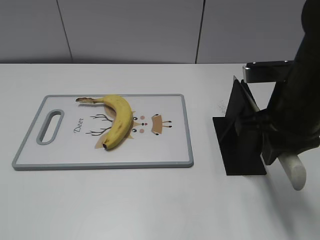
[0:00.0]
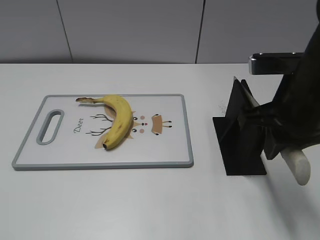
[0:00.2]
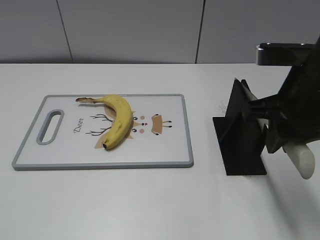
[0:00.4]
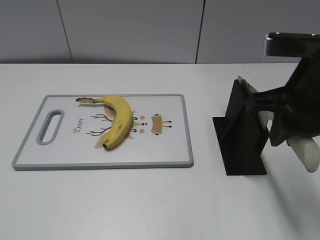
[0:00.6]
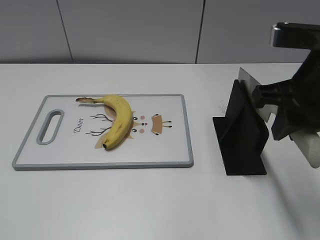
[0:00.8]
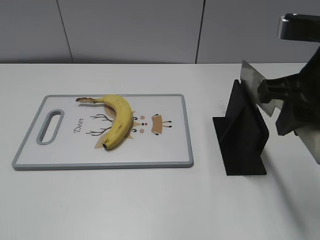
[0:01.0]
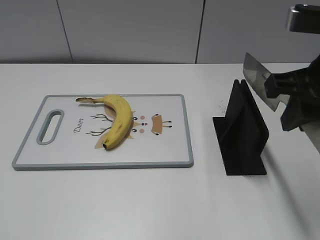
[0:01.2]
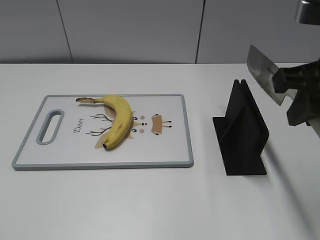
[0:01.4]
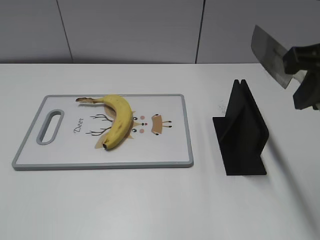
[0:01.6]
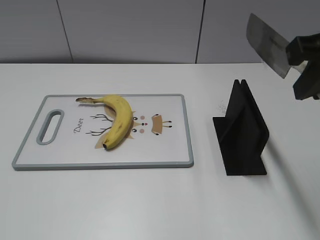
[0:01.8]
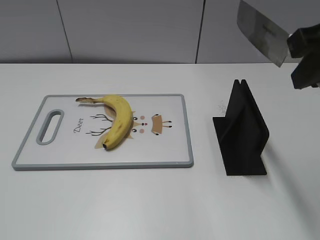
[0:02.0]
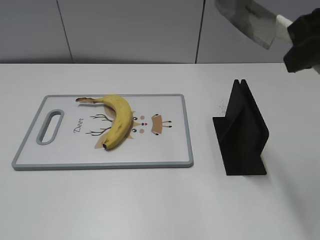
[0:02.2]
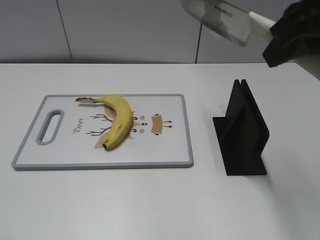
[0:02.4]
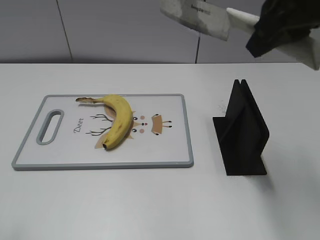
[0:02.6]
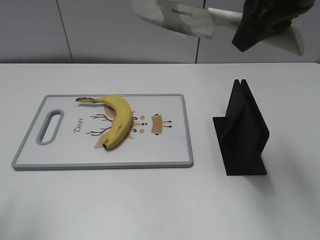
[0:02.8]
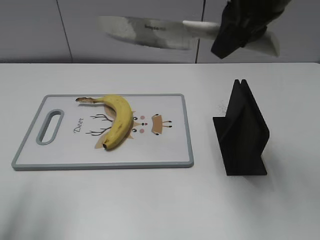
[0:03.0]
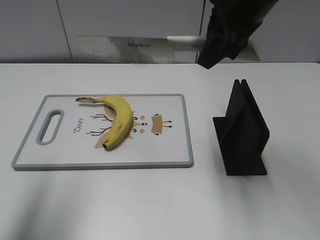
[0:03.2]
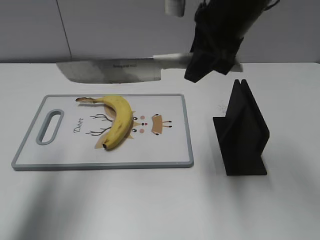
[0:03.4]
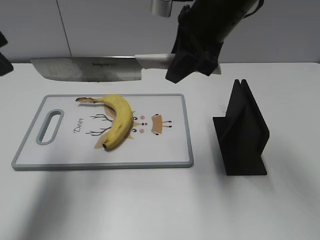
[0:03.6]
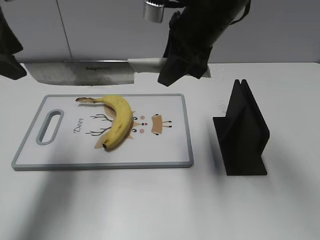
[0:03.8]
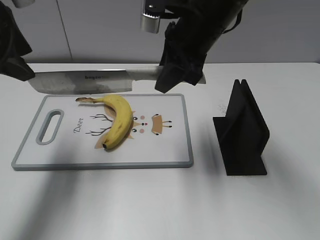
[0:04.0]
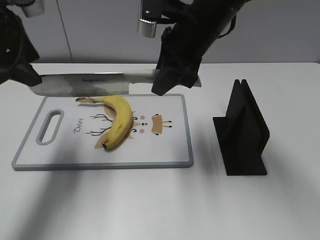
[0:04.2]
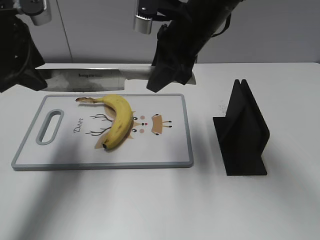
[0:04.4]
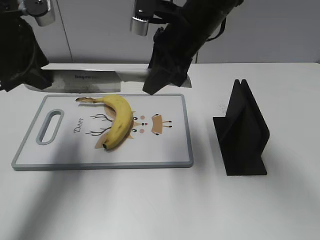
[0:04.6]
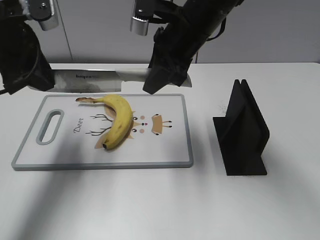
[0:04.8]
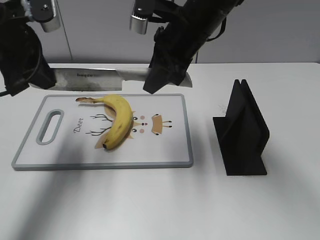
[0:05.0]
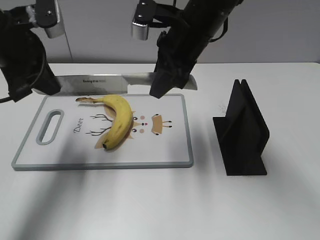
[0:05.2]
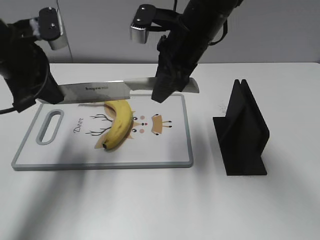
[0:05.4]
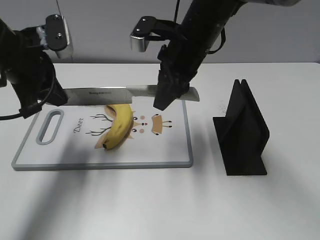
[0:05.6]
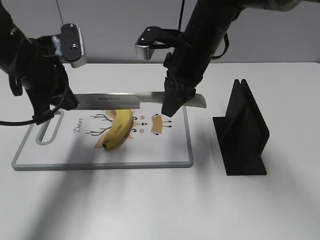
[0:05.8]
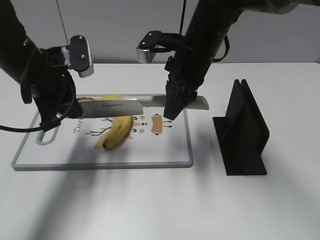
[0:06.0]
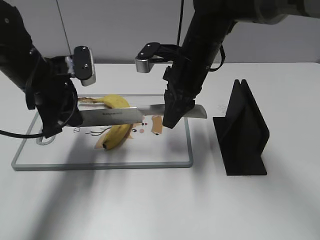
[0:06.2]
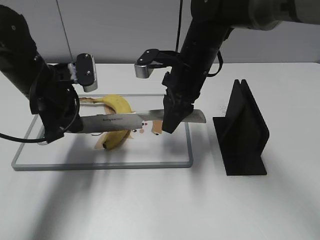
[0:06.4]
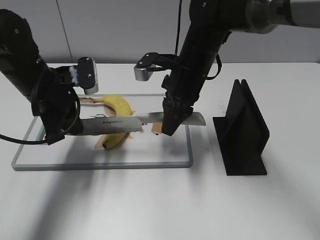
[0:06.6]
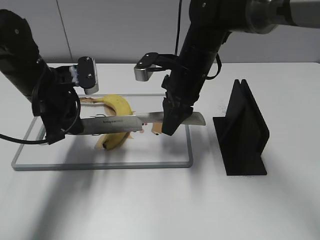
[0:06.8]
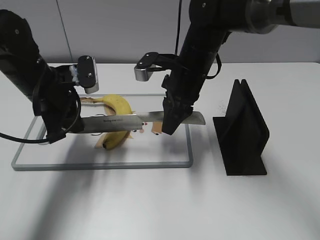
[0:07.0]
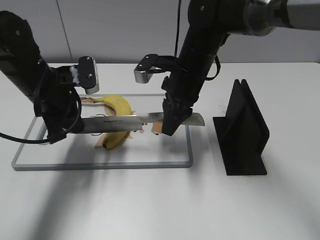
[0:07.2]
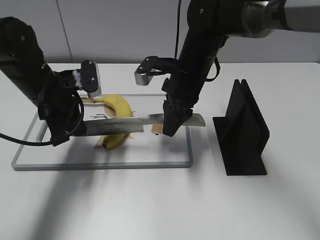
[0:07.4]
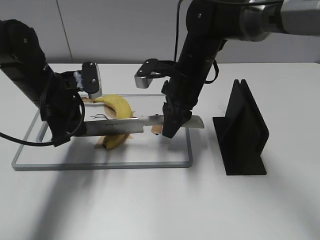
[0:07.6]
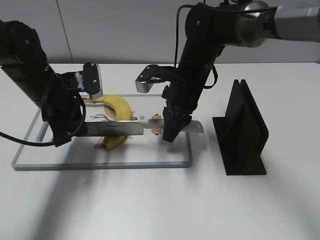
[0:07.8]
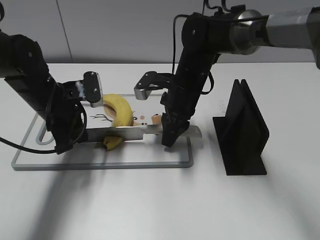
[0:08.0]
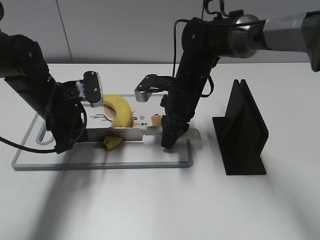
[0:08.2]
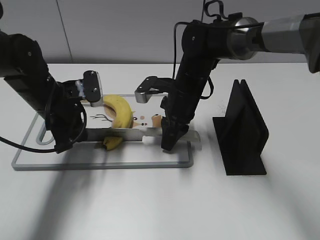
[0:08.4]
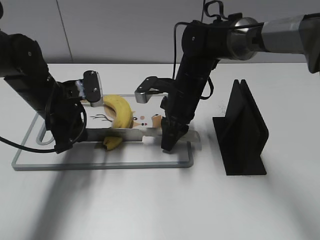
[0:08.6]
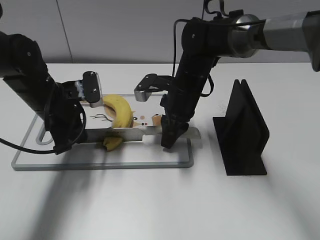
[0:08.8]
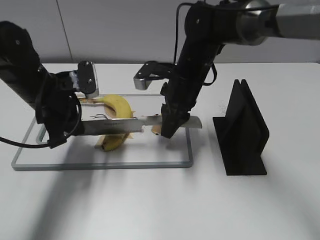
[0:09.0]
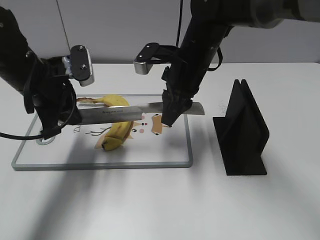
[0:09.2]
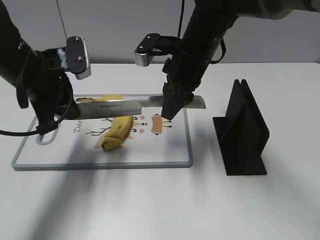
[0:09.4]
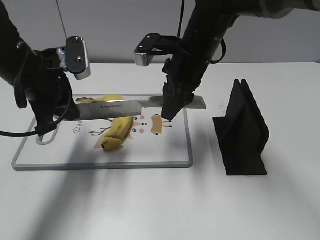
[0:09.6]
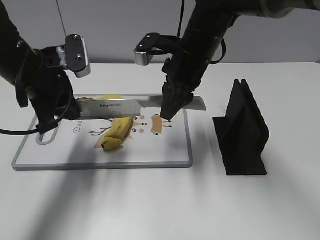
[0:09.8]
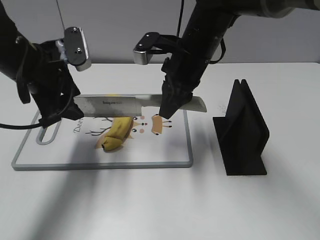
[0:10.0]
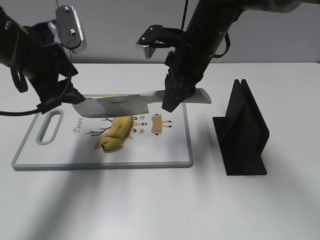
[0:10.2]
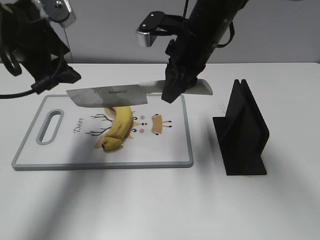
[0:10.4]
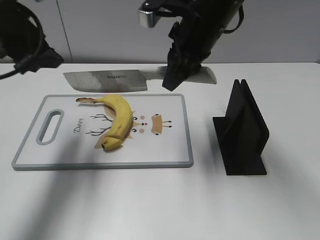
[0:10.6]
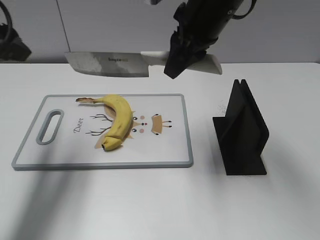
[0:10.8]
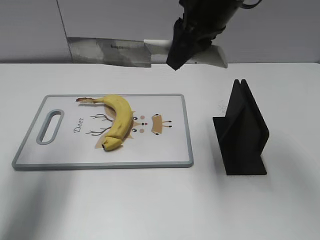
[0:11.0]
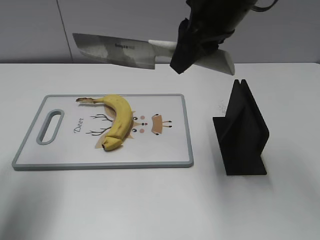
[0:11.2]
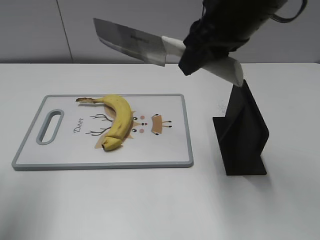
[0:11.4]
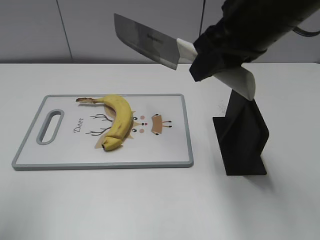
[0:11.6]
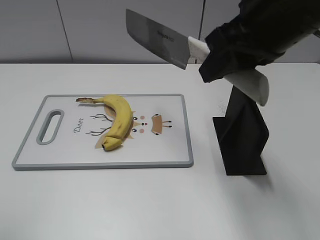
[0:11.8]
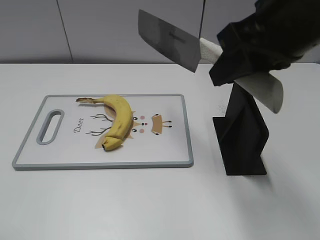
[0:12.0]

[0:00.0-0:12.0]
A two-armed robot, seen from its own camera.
Task of the whole recording: cut banana.
Step, 0:01.0 to 0:07.8: Lift the knife with your right hand.
0:00.0 to 0:01.6: The right gripper heads upward, covering about 10 cm.
0:01.6 to 0:03.0: The right gripper shifts about 10 cm forward and to the left; the left gripper moves forward and upward, approximately 15 cm.
0:03.0 to 0:04.4: The right gripper shifts about 15 cm downward, to the left and forward. The left gripper shifts approximately 20 cm forward and downward.
0:04.4 to 0:06.0: The left gripper shifts about 10 cm downward, and closes up. Meanwhile the right gripper travels downward by about 5 cm.
0:06.0 to 0:07.6: Both grippers travel together downward, approximately 5 cm.
0:07.6 to 0:09.0: The grippers move only a little.
0:09.0 to 0:10.4: The two grippers go approximately 10 cm upward. The left gripper opens up.
0:10.4 to 0:12.0: The right gripper travels backward, upward and to the right by about 20 cm. Meanwhile the left gripper moves backward and to the left, about 25 cm.

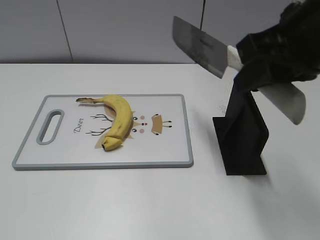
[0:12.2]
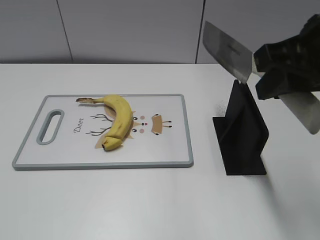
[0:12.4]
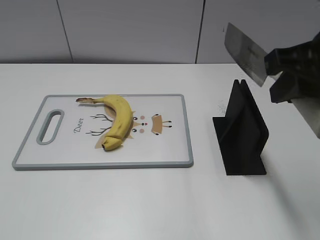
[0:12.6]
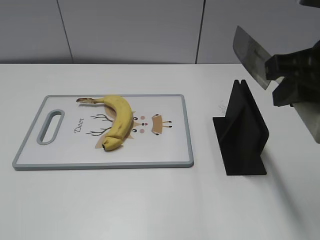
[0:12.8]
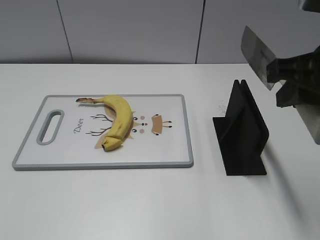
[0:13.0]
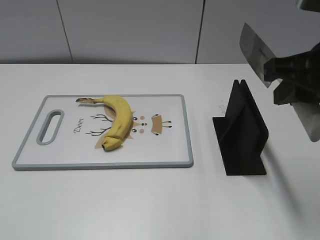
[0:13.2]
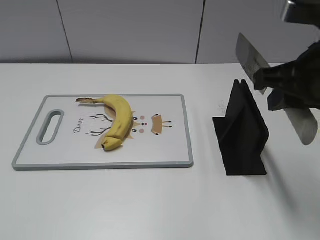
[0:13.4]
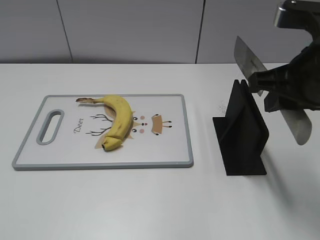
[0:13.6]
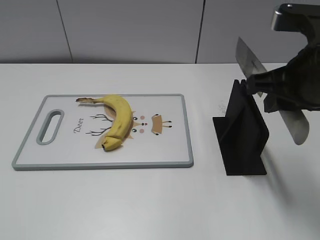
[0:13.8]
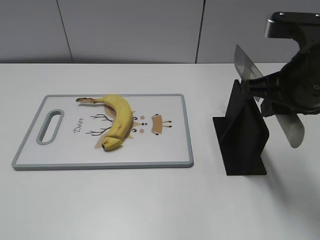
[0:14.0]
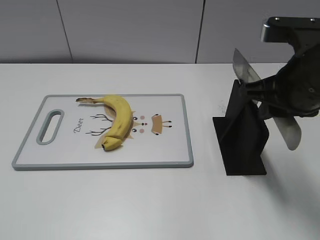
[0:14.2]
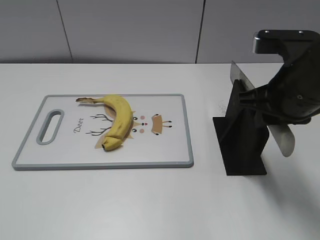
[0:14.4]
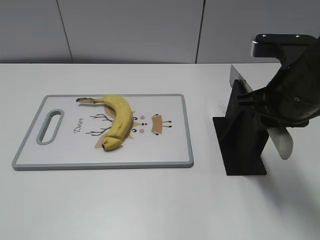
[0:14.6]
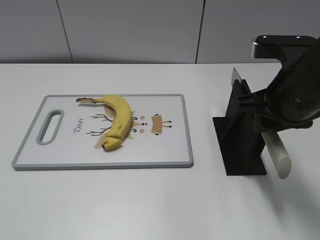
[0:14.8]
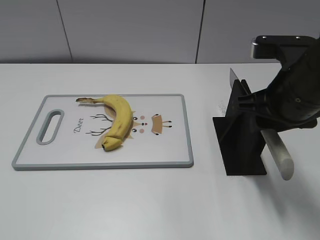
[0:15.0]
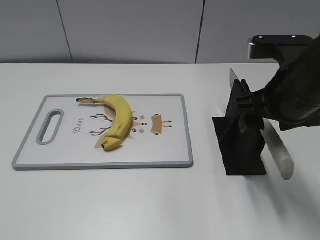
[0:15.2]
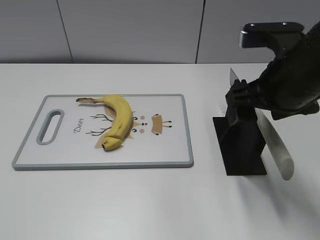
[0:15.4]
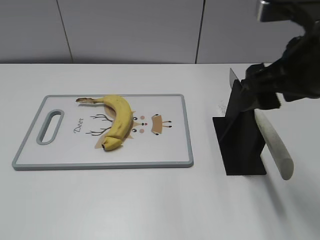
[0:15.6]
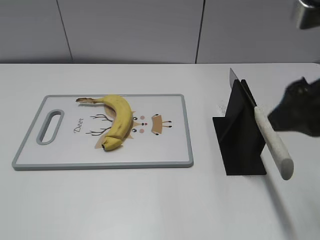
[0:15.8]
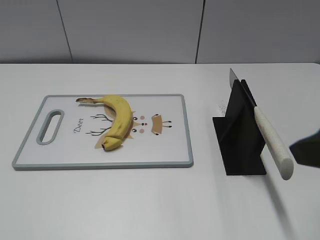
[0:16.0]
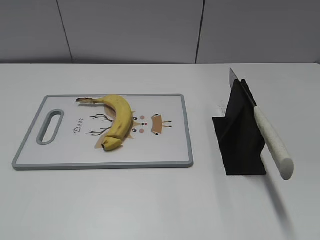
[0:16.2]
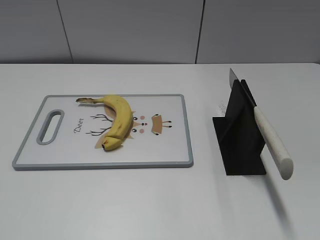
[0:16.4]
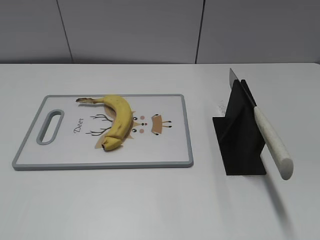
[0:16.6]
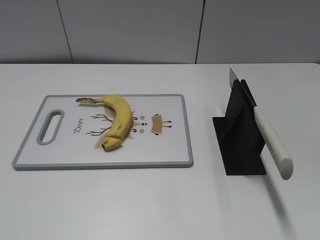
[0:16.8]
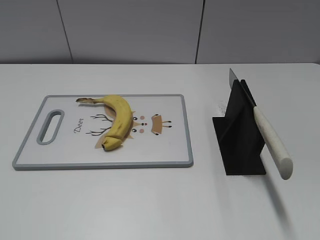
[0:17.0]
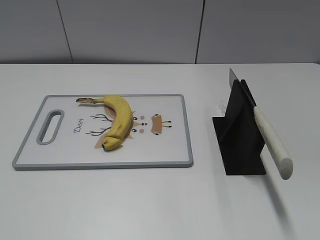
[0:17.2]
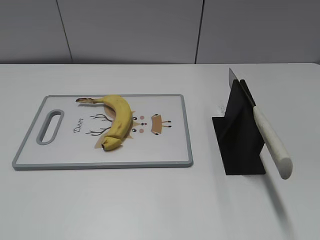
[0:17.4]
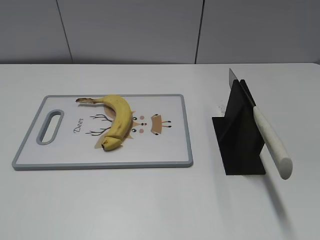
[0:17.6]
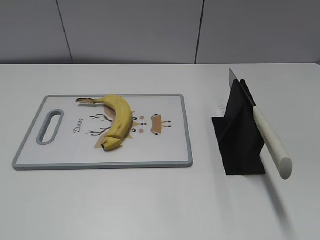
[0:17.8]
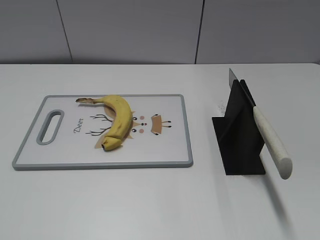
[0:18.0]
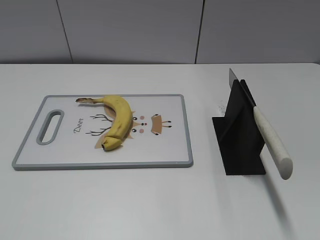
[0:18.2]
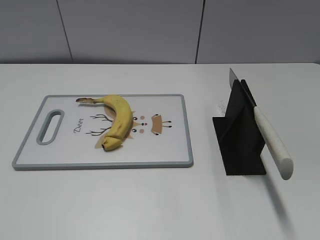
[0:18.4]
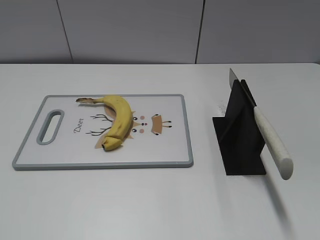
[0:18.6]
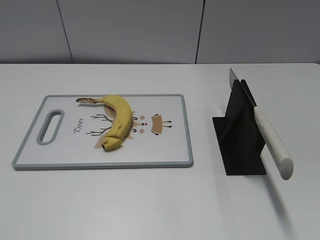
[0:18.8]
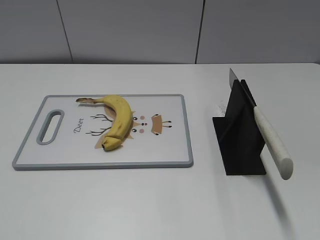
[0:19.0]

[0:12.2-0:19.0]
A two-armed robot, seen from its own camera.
Task of the whole recording: cut banana.
Step, 0:12.4 to 0:14.0: Lift the knife with your right hand.
Step, 0:14.4 to 0:19.0: Place the knife on the storage rack with your right hand.
0:12.2 to 0:13.6: The right gripper is displaced downward by about 5 cm; the left gripper is displaced backward by about 5 cm.
0:13.6 to 0:15.0: The right gripper opens.
0:15.0 to 0:16.2: The right gripper moves backward, to the right and upward, about 20 cm, and opens its fingers.
